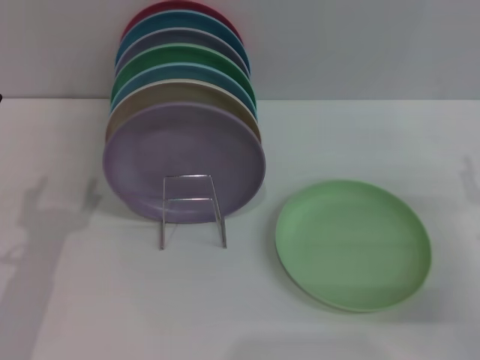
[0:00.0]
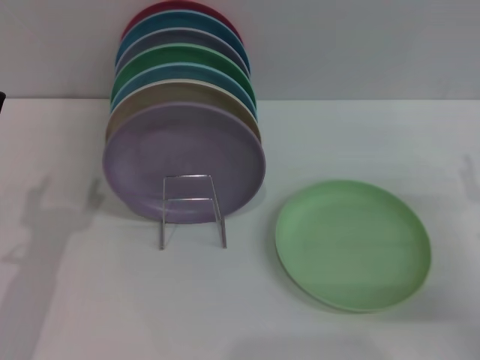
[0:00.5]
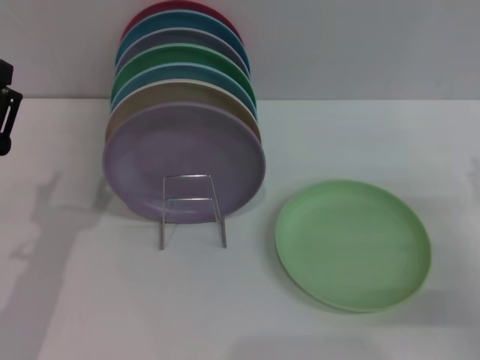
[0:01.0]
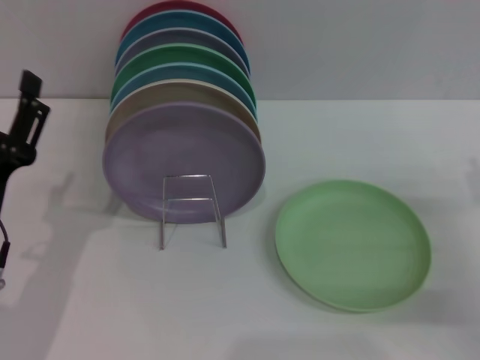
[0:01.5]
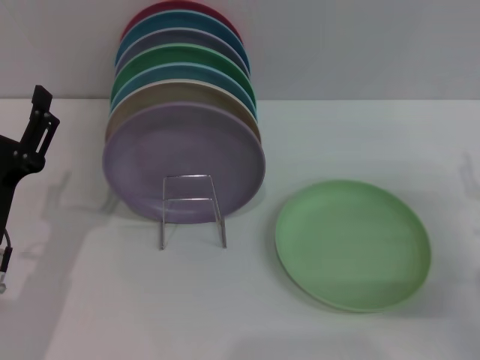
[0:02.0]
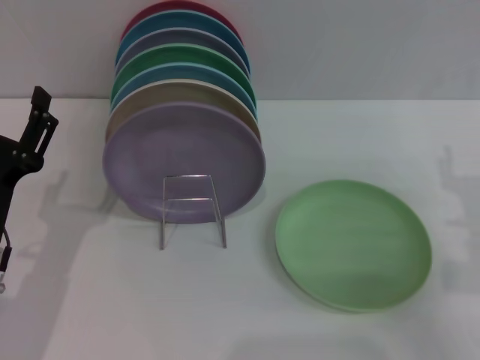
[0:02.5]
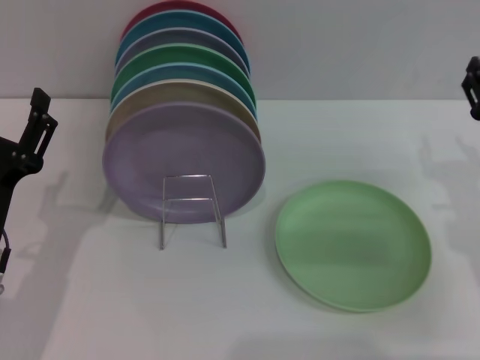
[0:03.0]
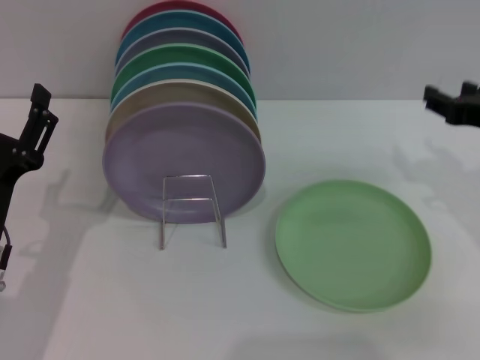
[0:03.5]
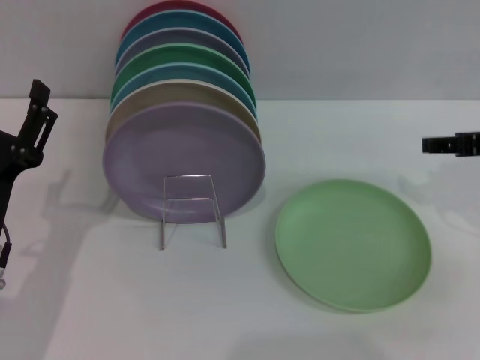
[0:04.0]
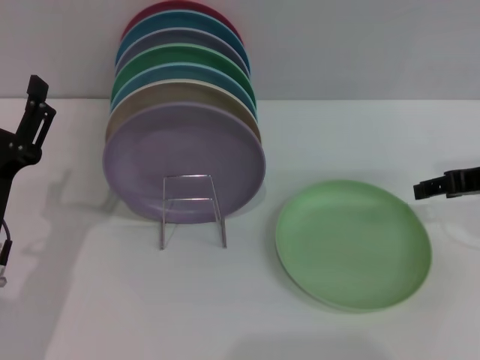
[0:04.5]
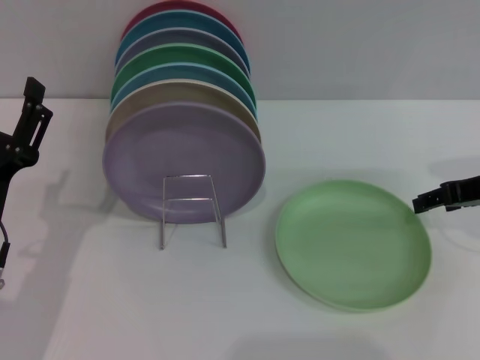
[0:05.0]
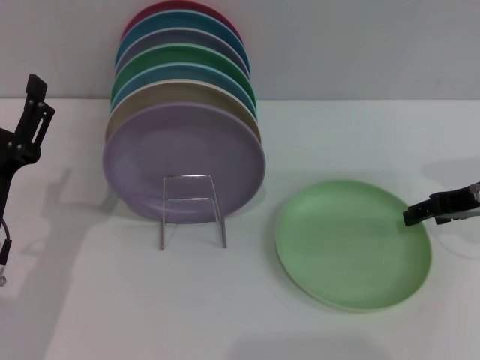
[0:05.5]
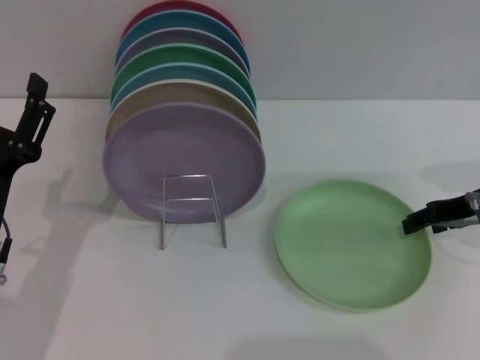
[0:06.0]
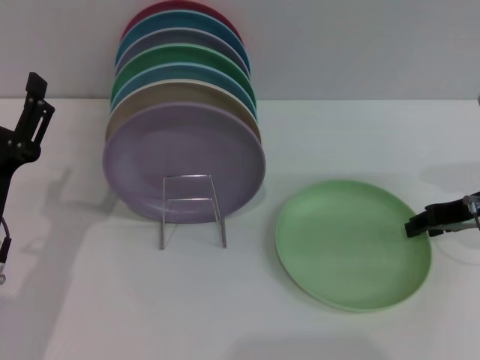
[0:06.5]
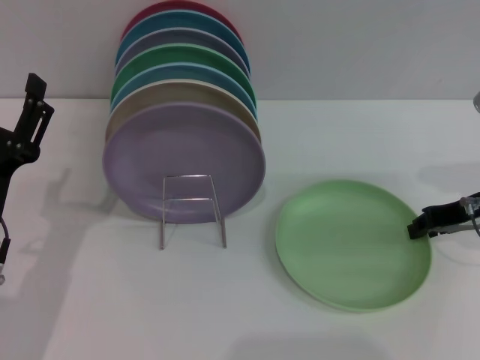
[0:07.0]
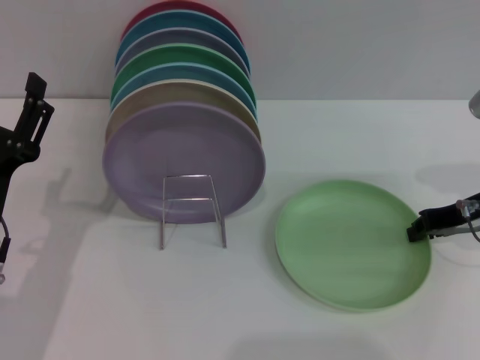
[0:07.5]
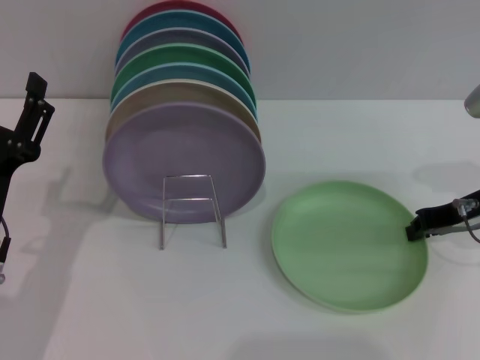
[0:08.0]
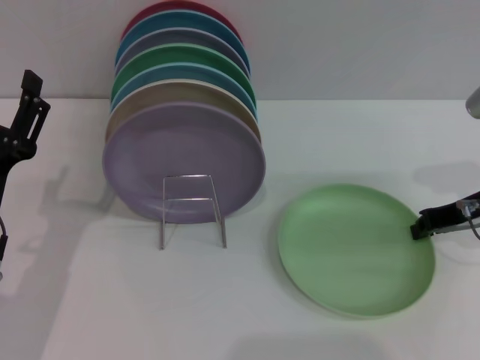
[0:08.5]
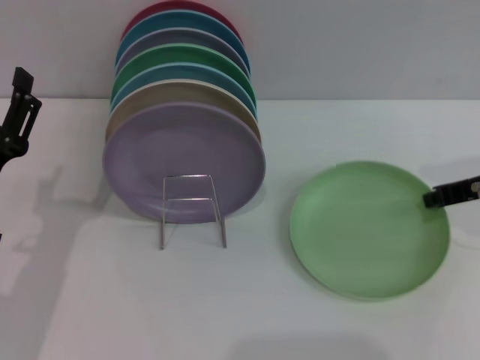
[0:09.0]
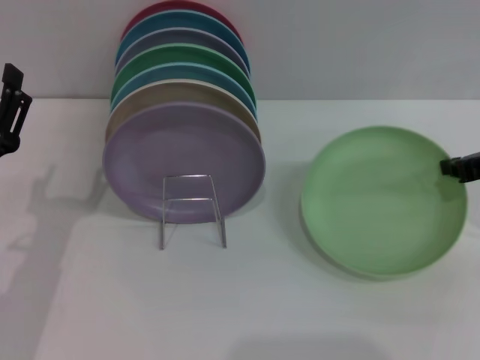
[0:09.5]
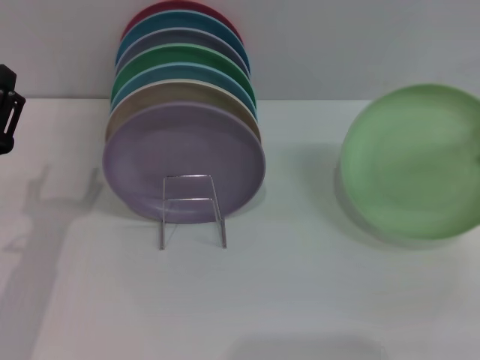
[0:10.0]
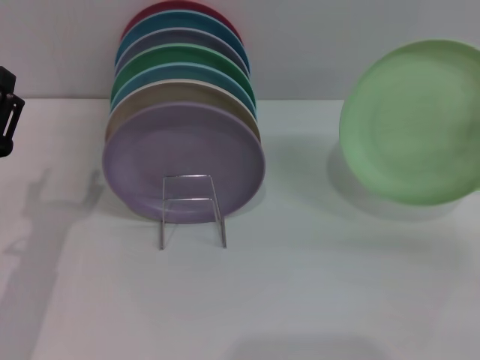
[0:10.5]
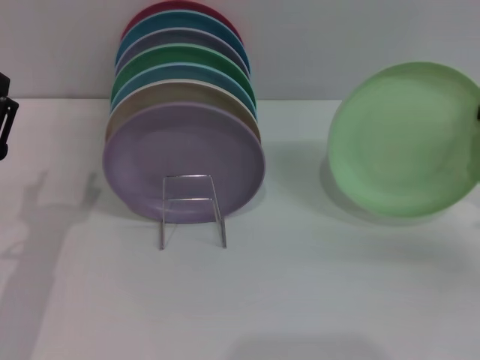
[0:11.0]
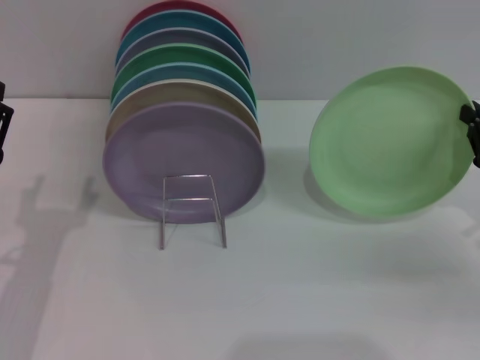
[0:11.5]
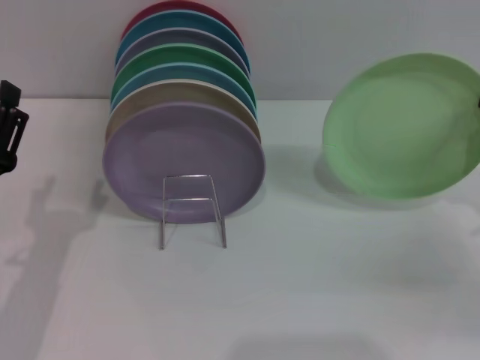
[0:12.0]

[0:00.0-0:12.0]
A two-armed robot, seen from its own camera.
Task of the whole recording: Grip the plate with one hand, pass it to the other, then set it on the shelf.
Step, 0:00.0 to 0:09.5: Pick up the plate with the right gripper.
0:00.0 to 0:02.0: The grippers make only small movements.
0:02.0 to 0:04.0: The right gripper travels upward and forward by some 15 cm.
0:04.0 to 0:06.0: The right gripper heads downward, covering roughly 5 cm.
0:06.0 to 0:08.0: The right gripper closes.
0:08.0 to 0:10.0: The right gripper heads upward and to the right, covering some 10 cm.
0:10.0 to 0:12.0: The right gripper goes approximately 10 cm downward.

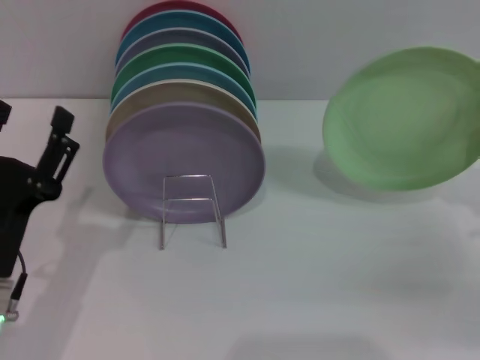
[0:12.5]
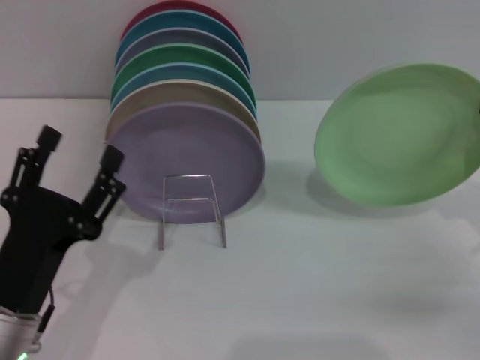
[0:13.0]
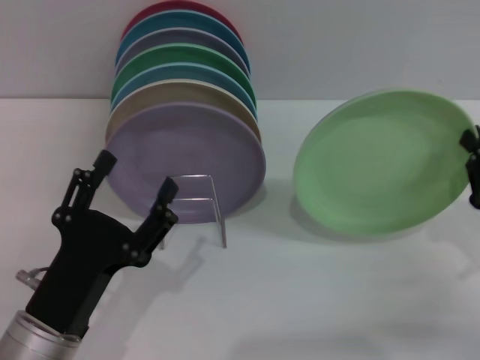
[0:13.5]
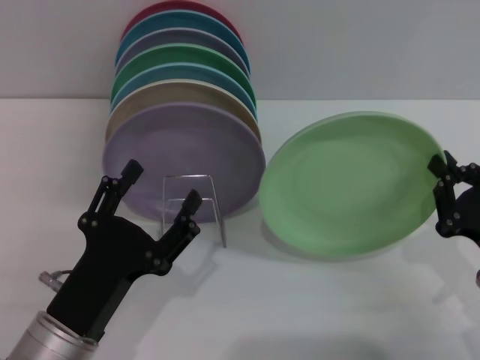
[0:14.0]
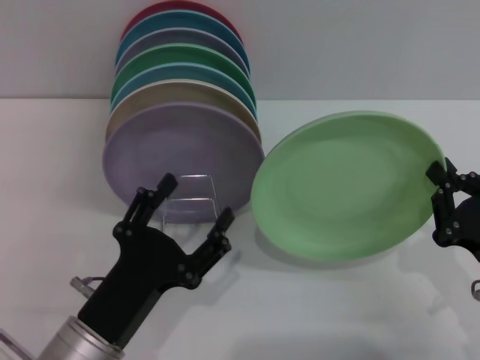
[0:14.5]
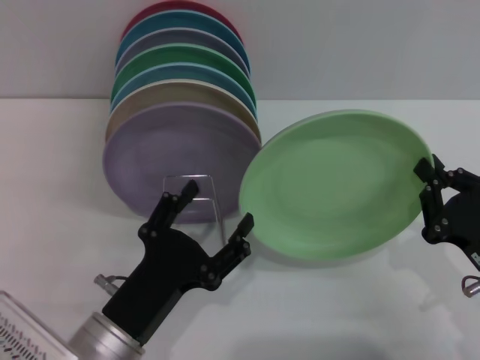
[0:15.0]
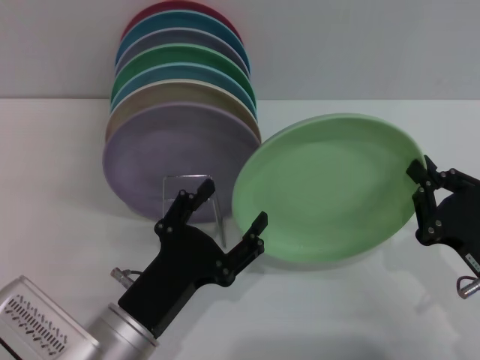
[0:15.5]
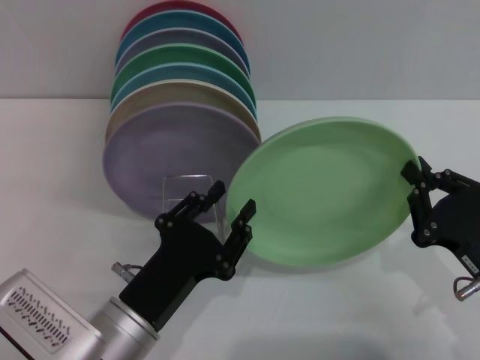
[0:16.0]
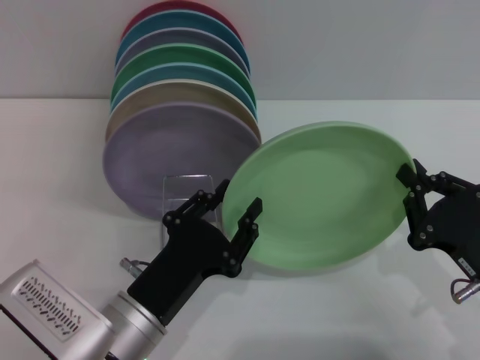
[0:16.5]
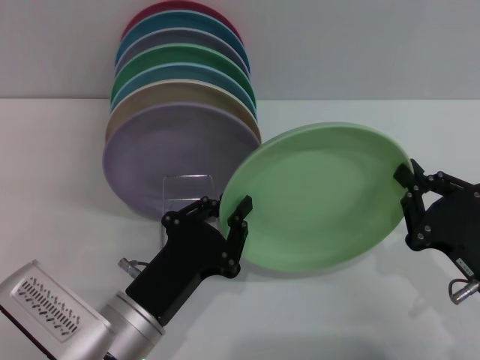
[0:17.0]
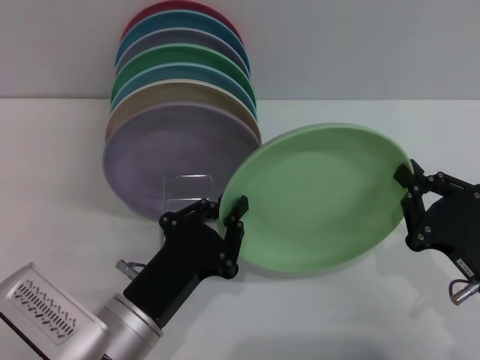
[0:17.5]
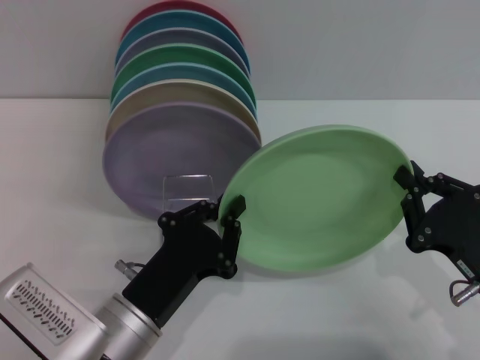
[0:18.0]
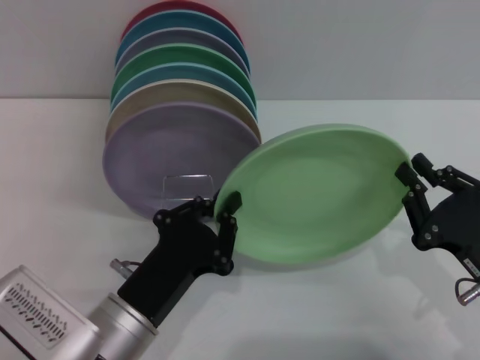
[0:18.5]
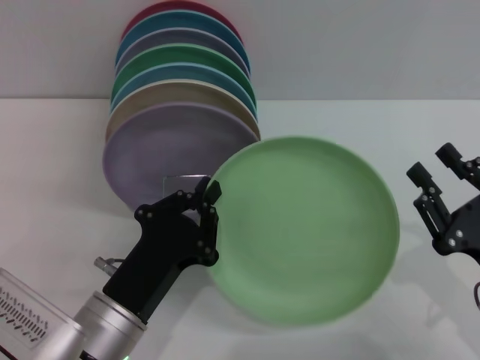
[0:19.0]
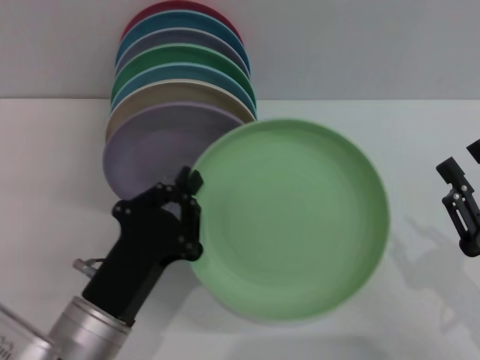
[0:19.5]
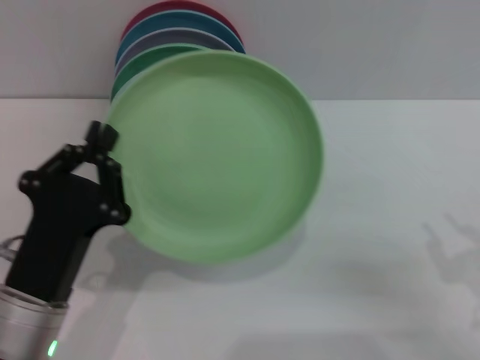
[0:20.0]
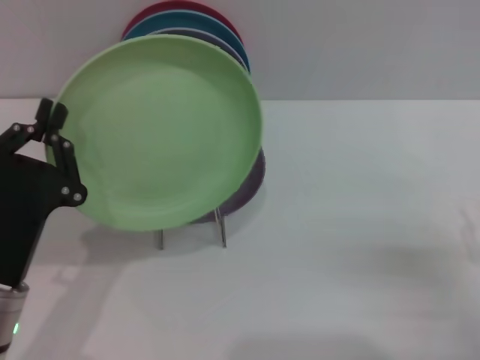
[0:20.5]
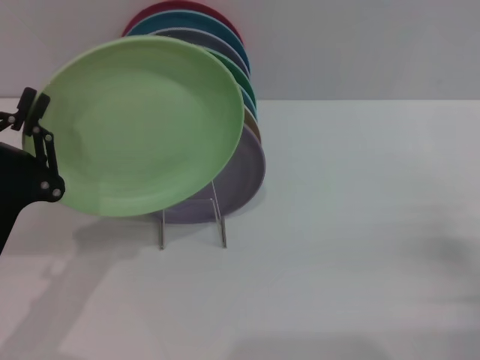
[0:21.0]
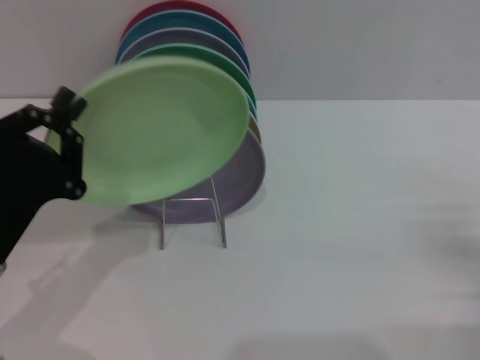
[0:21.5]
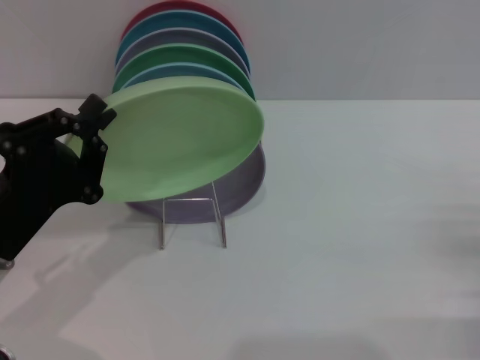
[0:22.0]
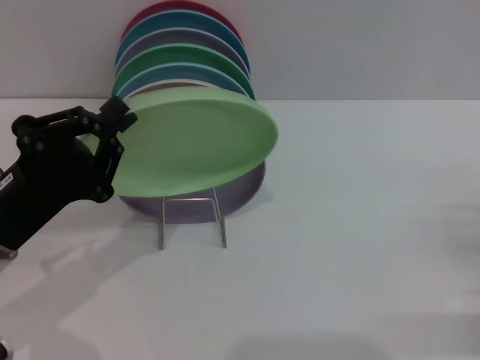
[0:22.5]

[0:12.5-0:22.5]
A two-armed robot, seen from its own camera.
Task of the whole recording: Grip the plate with one hand, pass it to the other, then set it on the shelf.
Step, 0:12.5 to 0:19.0: Pass the plate from the right gripper to the left gripper.
0:12.5 to 0:14.5: The left gripper travels to the right by roughly 5 cm. The right gripper moves backward and to the left, some 10 cm.
0:14.5 to 0:16.5: The left gripper closes.
0:16.5 to 0:18.5: The left gripper closes its fingers.
0:18.5 to 0:20.5: The left gripper is displaced to the left by about 10 cm; the right gripper moves to the right, about 10 cm, and opens up.
0:20.5 to 0:22.5: The right gripper moves approximately 5 cm. The left gripper shifts by roughly 5 cm.

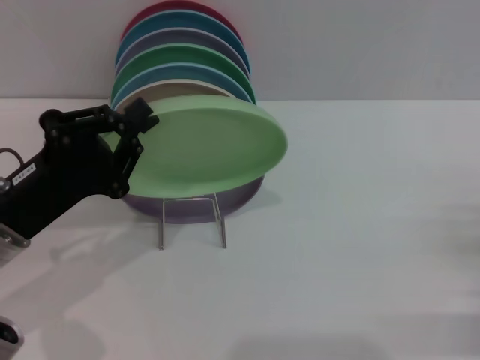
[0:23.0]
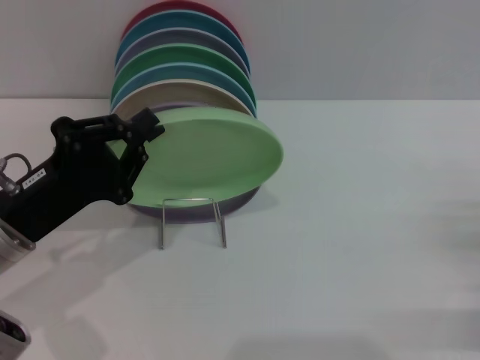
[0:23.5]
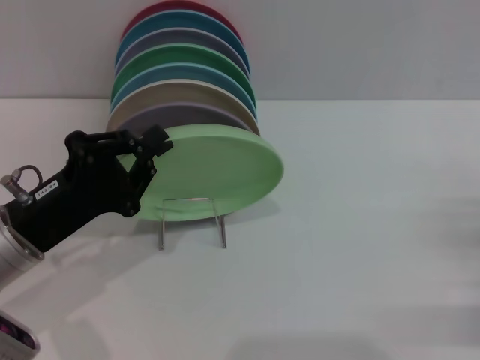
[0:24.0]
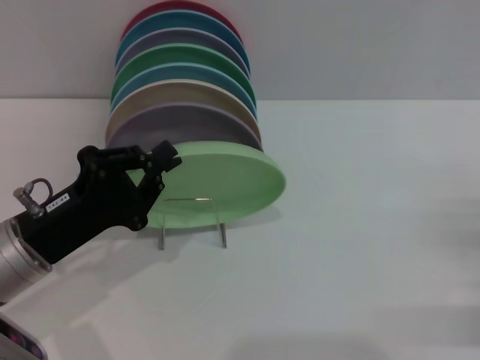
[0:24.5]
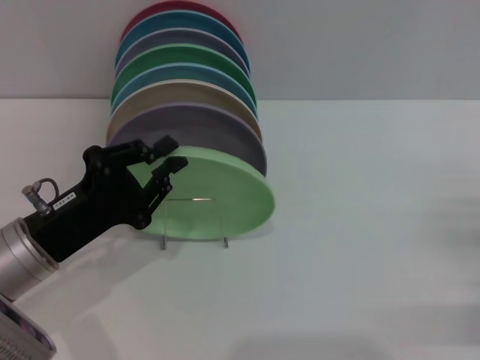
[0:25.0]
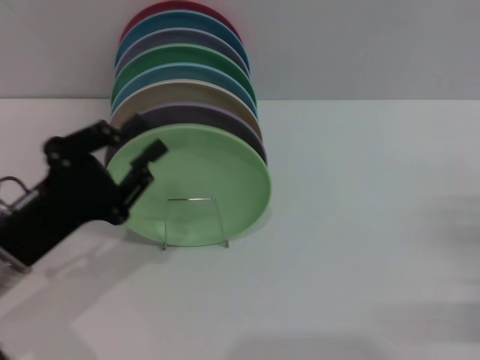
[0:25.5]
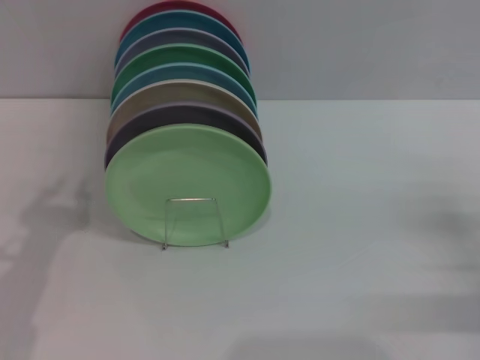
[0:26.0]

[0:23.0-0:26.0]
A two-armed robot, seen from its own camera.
Task of the whole recording: Grip the plate with one hand, pass it to the other, then set it on the shelf.
Step, 0:23.0 to 0:25.0: Place the plate on the shelf with the left gripper.
0:23.0 to 0:24.5: There are only small adjustments of the grippers.
0:24.5 to 0:26.0: The left gripper ends up some 5 cm from where it was.
